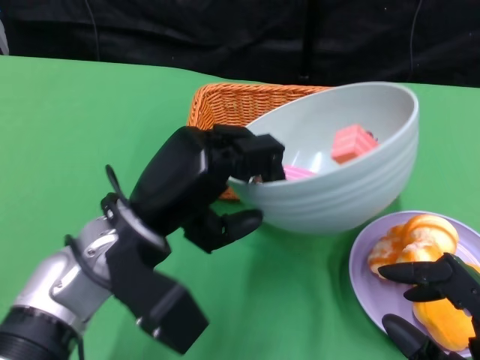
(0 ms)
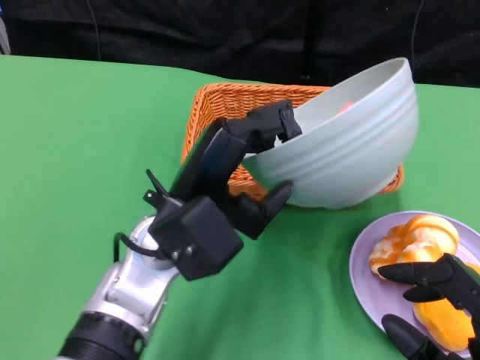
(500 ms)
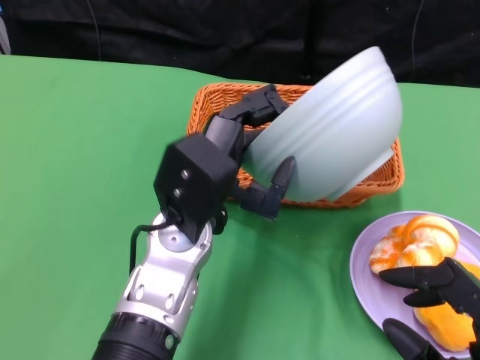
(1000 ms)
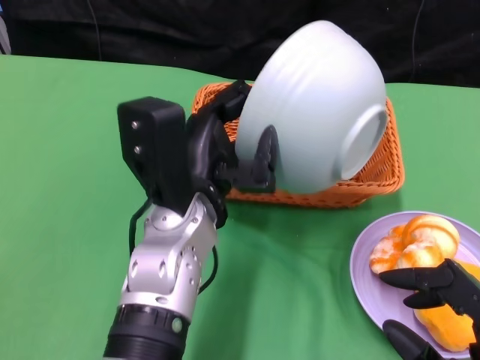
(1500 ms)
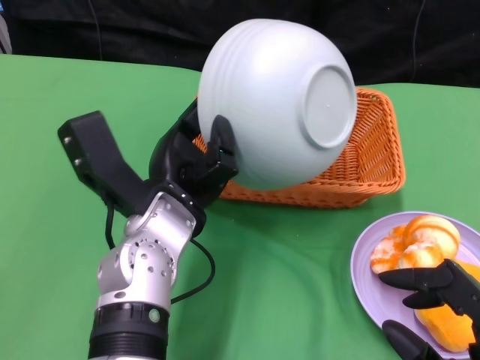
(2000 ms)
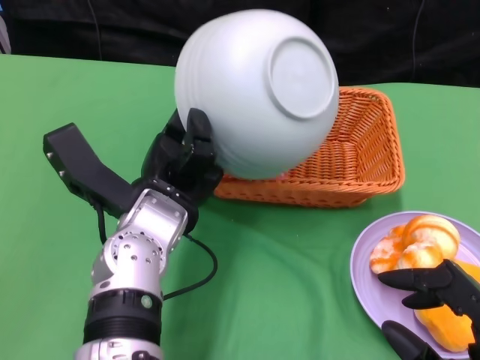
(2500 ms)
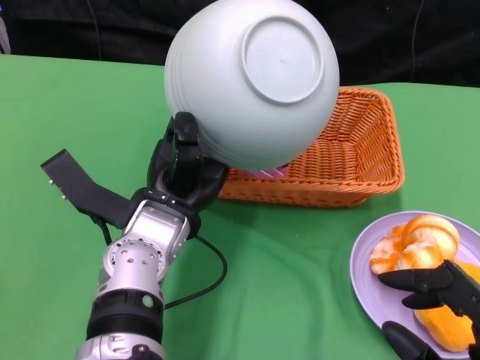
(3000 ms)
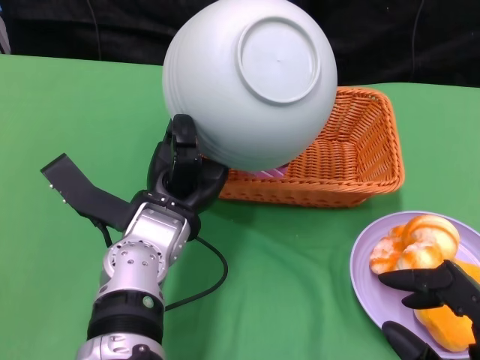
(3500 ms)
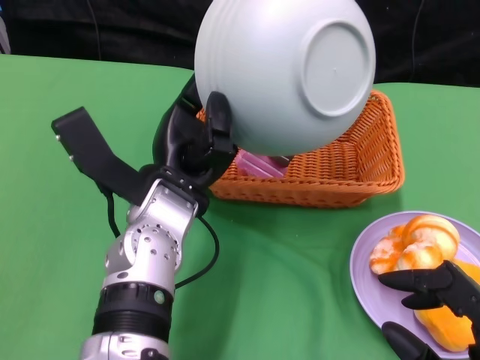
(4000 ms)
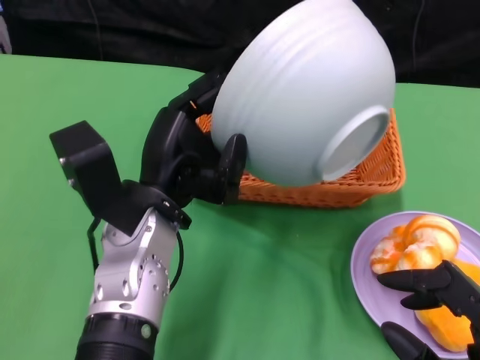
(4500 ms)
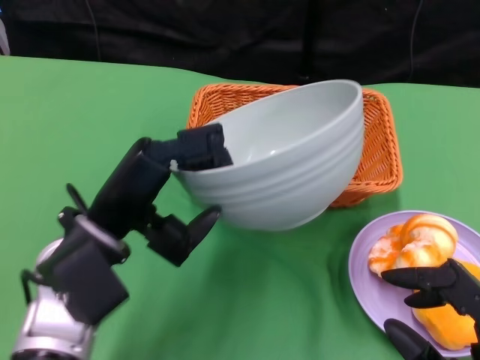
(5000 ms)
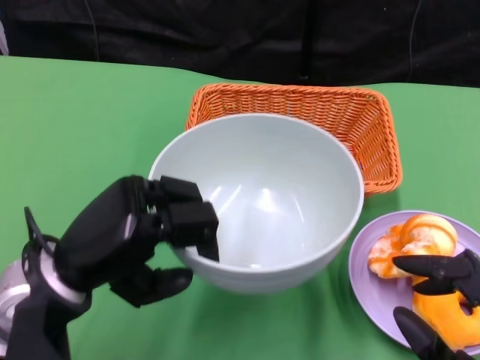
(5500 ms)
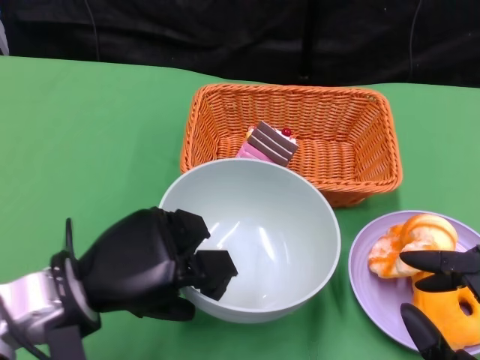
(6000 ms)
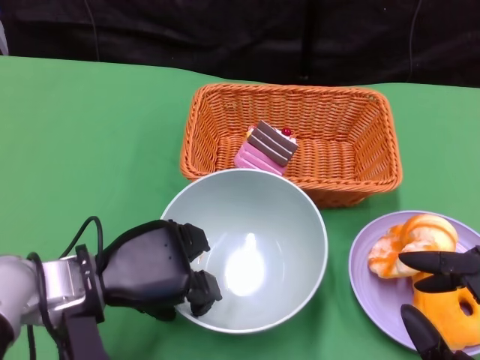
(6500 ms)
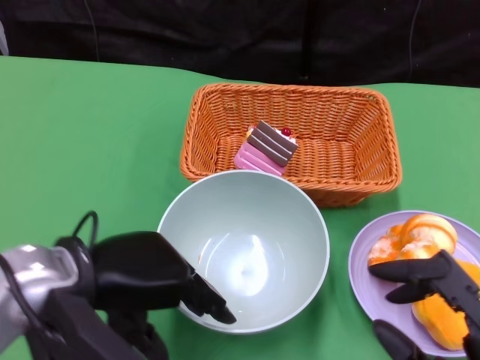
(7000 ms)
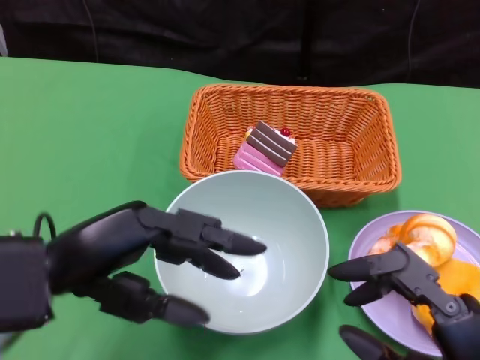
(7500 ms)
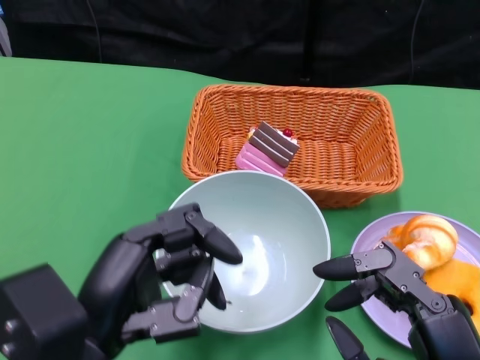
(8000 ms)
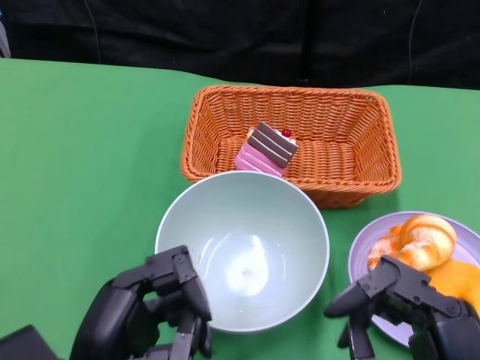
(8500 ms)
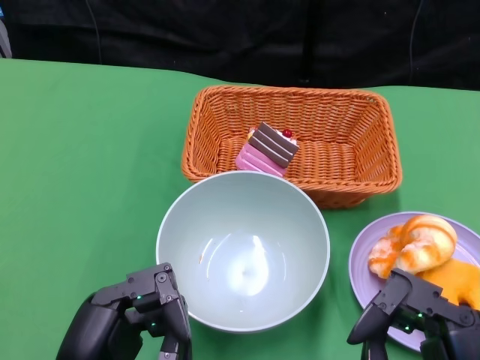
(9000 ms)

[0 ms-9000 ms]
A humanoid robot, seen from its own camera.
Step, 0 ms to 3500 ms: Pour the cake into the basket with the left gripper.
Step, 4000 ms to 7500 ms: Place the bowl on the table with the left gripper.
4500 ms to 7000 ms: The left hand moves to the left and backward, approximately 10 cm.
7000 ms to 9000 ms: The left hand moves backward and downward, some 10 cm.

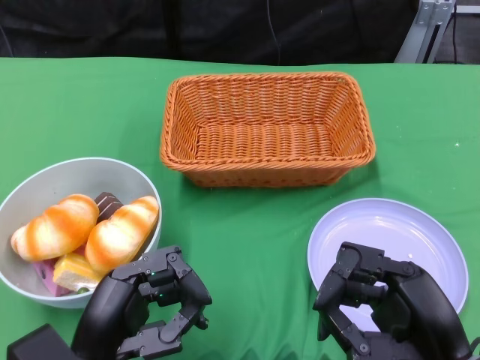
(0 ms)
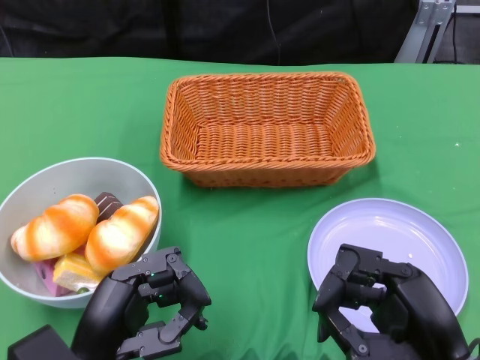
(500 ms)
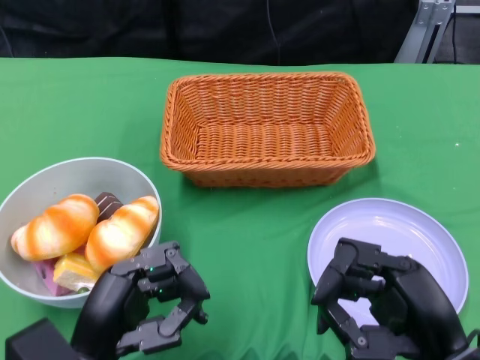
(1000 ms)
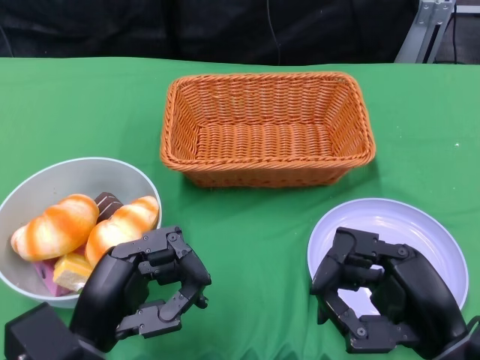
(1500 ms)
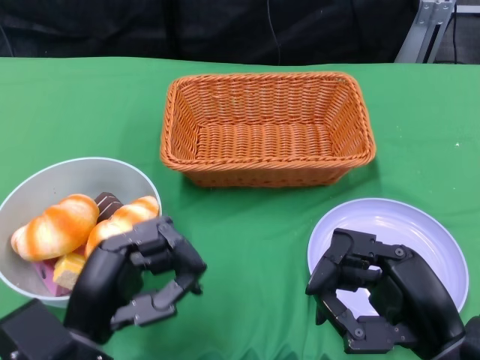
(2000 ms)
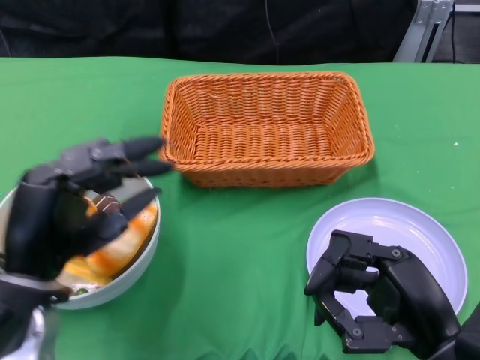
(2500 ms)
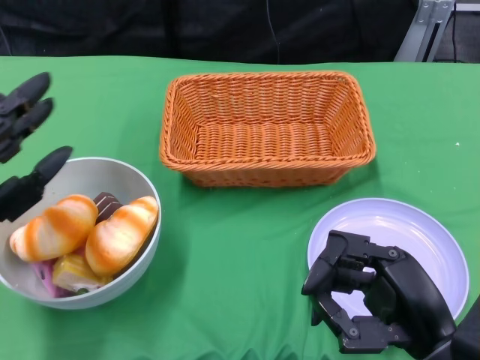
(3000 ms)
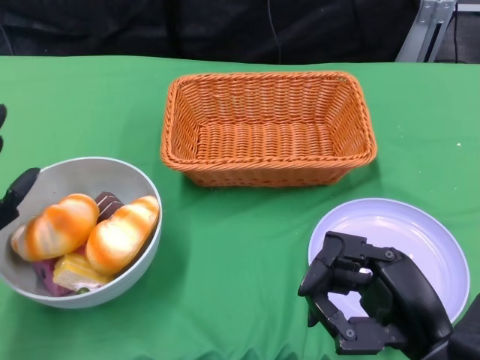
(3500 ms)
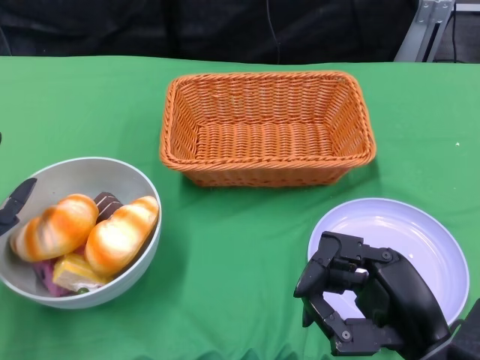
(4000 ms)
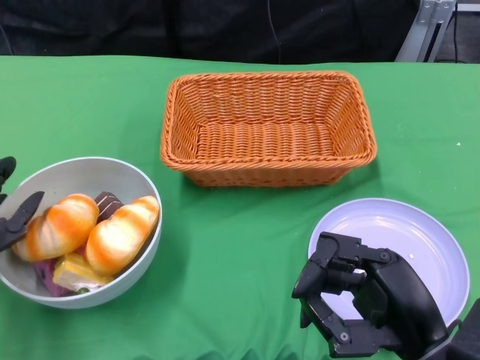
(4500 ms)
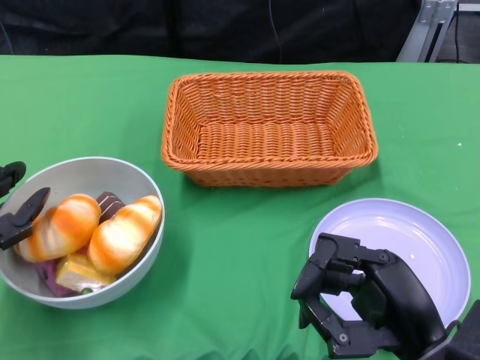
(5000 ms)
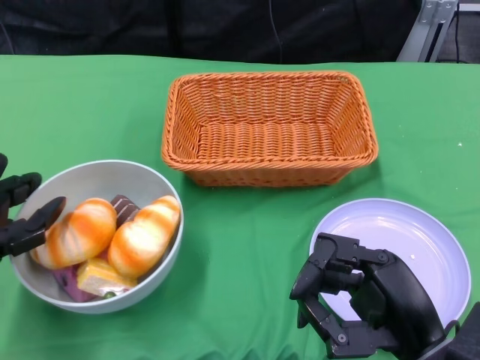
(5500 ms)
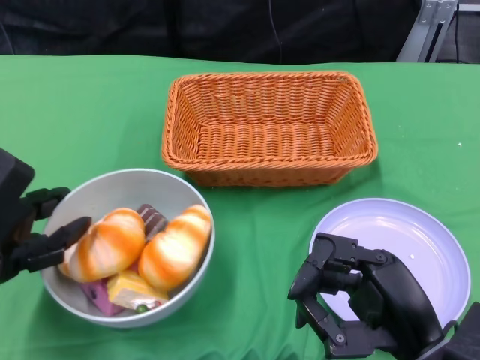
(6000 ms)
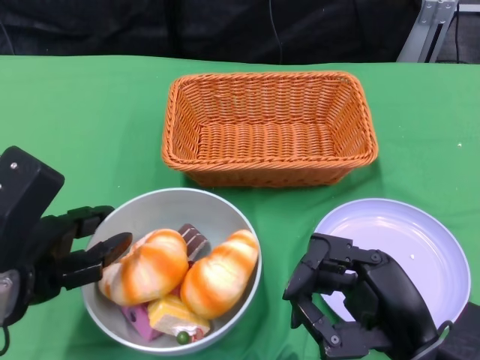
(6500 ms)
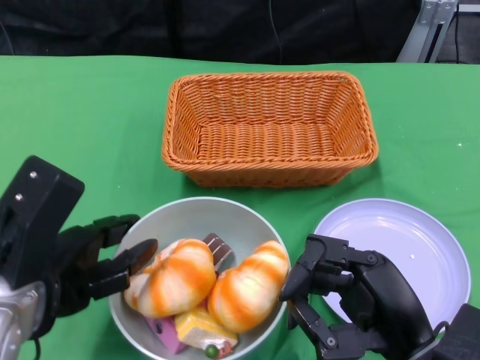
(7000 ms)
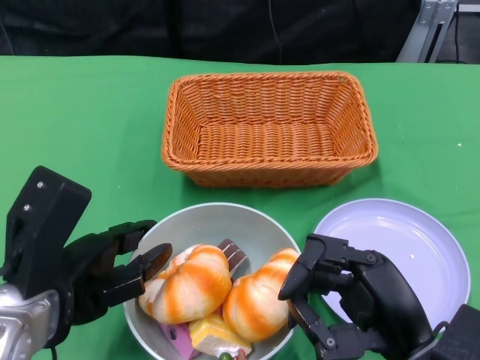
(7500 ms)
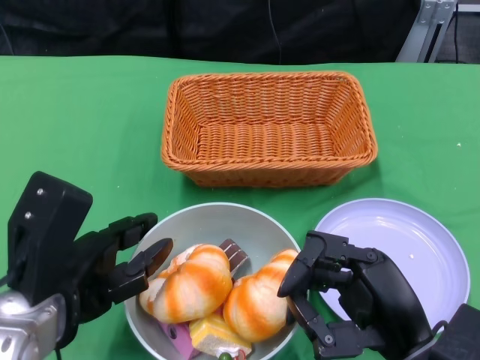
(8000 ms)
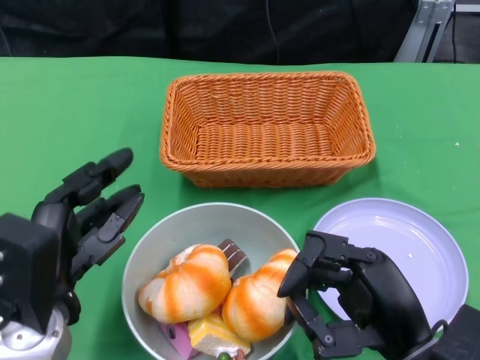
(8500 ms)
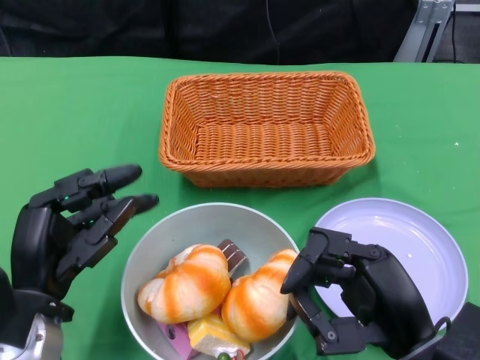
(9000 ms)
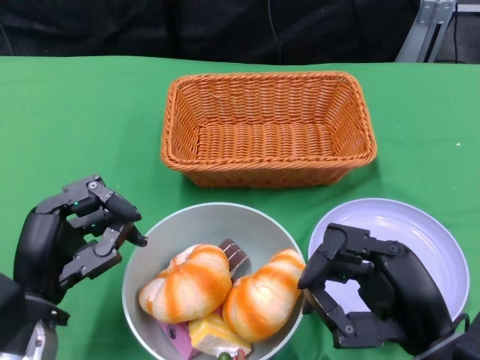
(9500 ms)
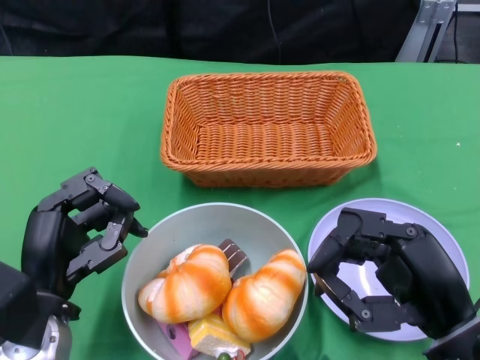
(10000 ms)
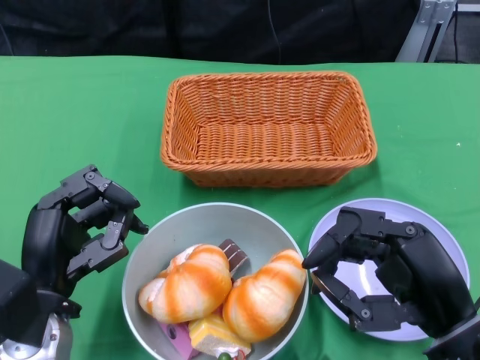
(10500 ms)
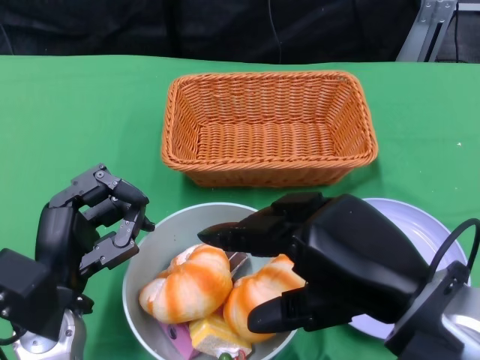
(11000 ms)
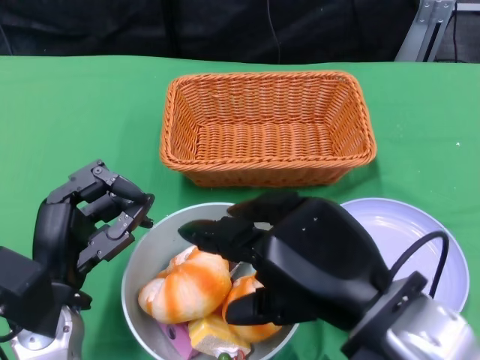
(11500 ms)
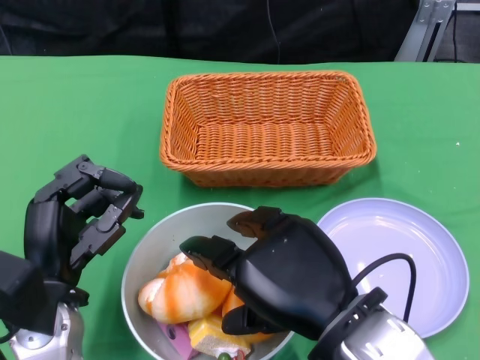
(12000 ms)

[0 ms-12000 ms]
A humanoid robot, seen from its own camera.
Step, 0 ms to 8500 ms: Push the bowl to the center of the table using the left gripper.
2000 ms to 4000 ms: The left hand shifts some 15 cm to the left and forward.
6000 ms to 8000 ms: The left hand is displaced to the right by some 5 cm.
8000 ms to 10000 ms: The left hand heads downward, covering approximately 5 cm.
10000 ms to 12000 ms: The right hand travels to the left by some 10 cm.

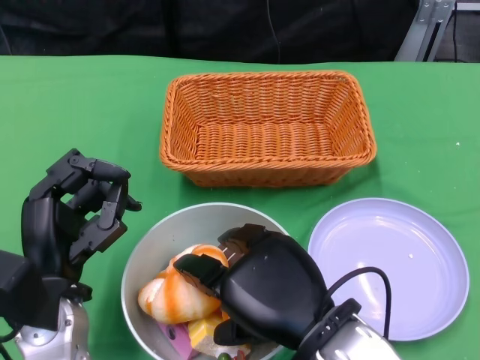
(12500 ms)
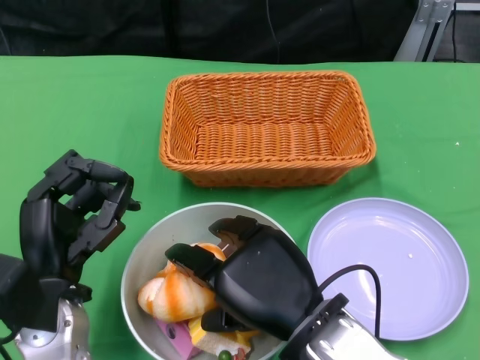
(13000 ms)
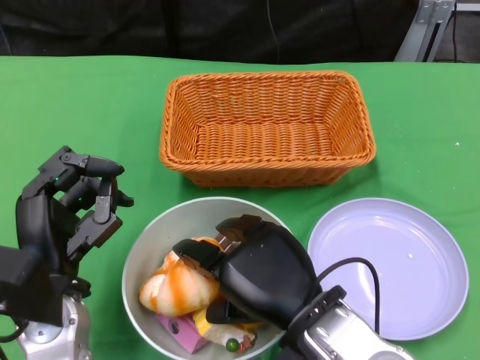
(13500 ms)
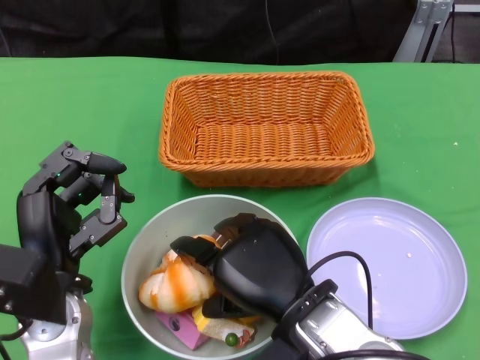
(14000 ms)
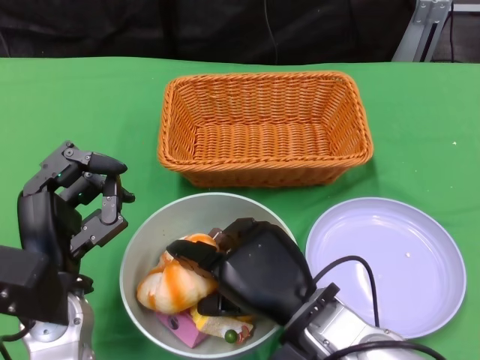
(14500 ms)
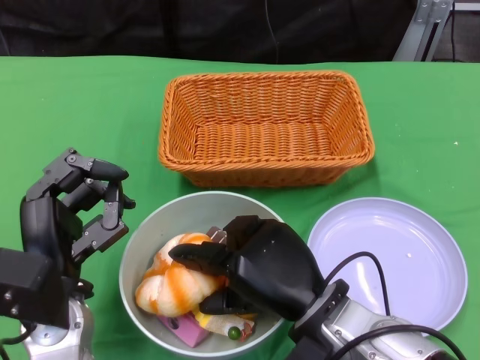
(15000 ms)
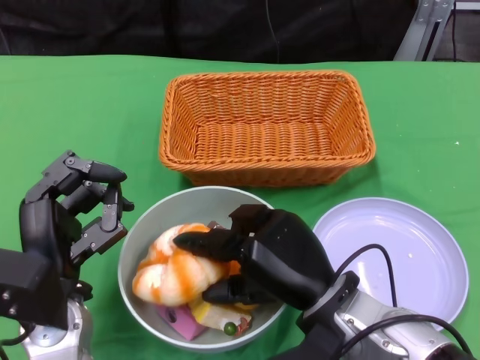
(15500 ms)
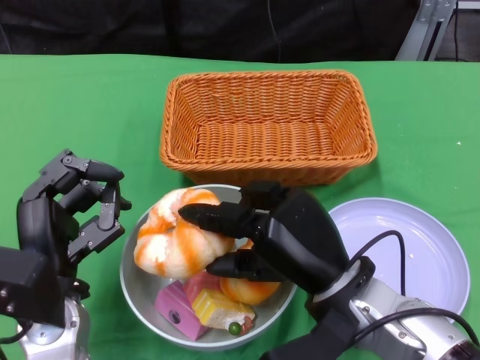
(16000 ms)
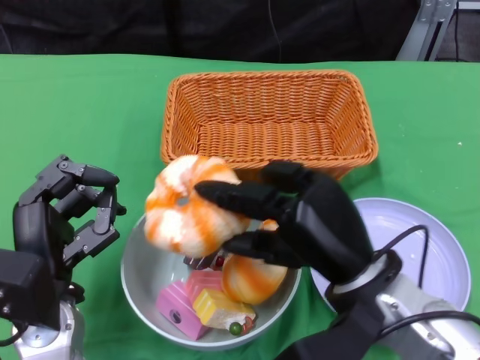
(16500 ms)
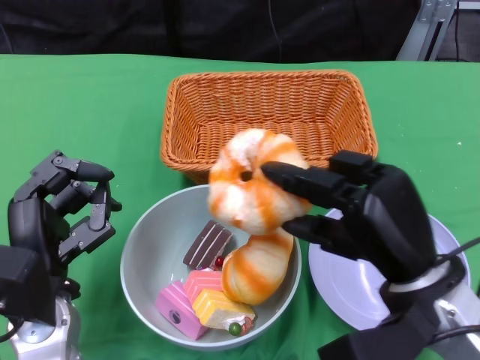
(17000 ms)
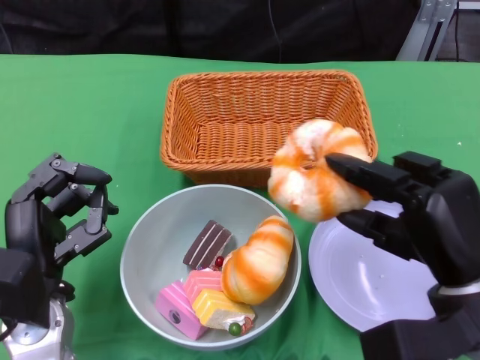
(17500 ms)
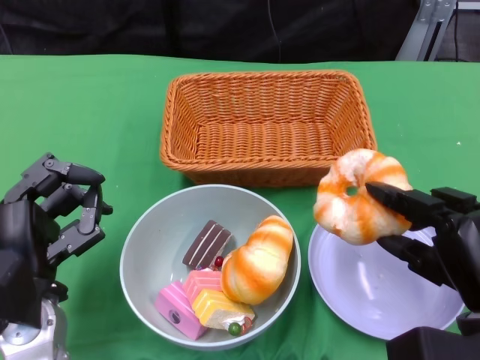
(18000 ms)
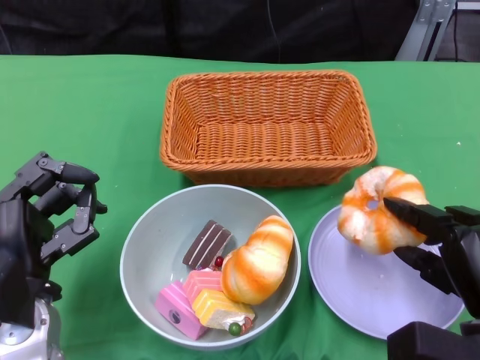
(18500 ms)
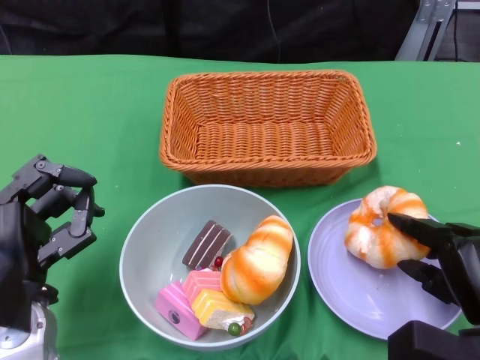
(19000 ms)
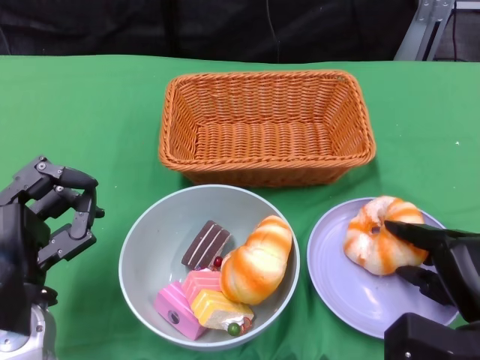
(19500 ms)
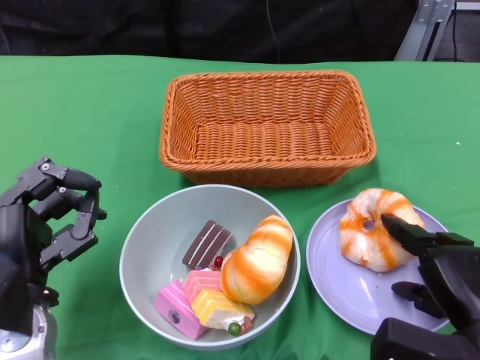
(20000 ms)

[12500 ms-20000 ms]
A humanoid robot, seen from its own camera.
12500 ms to 14500 ms: The right hand heads downward, covering some 5 cm.
14500 ms to 16500 ms: The right hand shifts by approximately 5 cm.
16500 ms to 18000 ms: The right hand travels to the right by about 10 cm.
